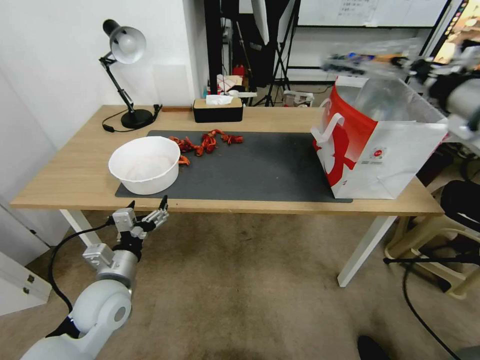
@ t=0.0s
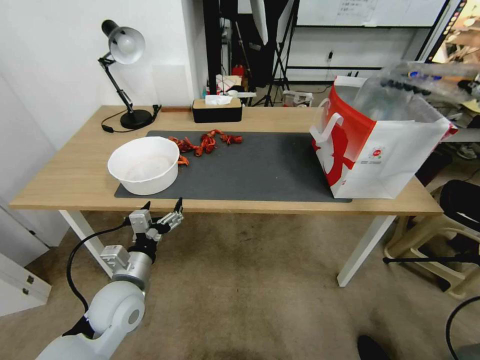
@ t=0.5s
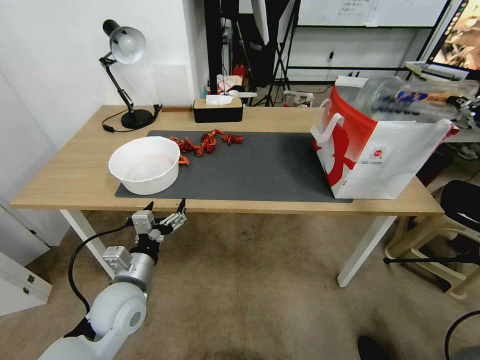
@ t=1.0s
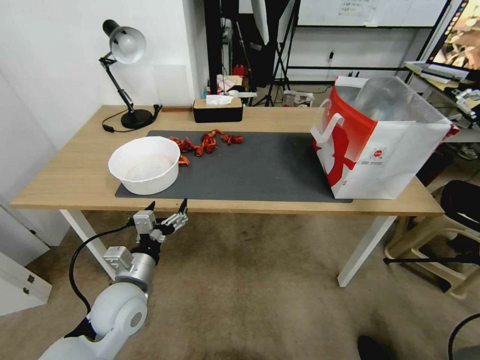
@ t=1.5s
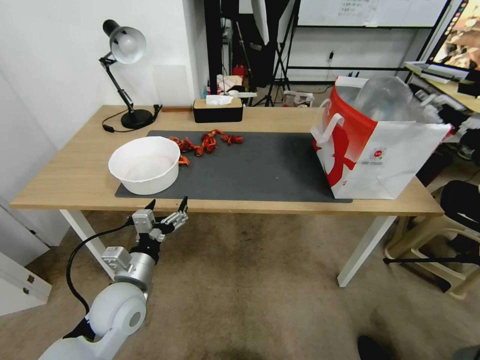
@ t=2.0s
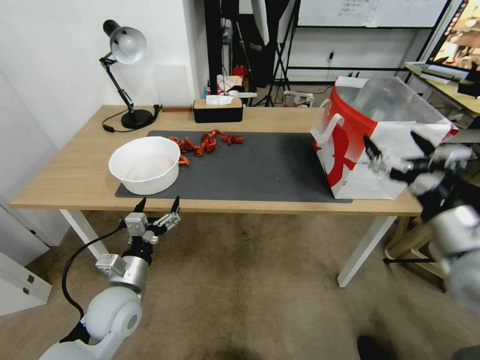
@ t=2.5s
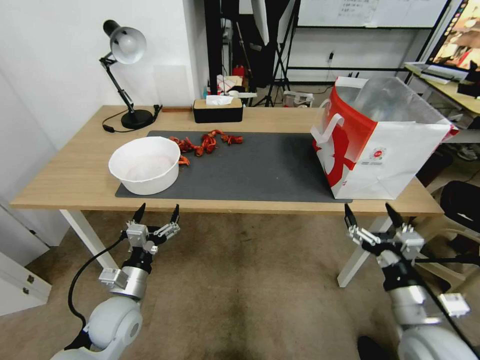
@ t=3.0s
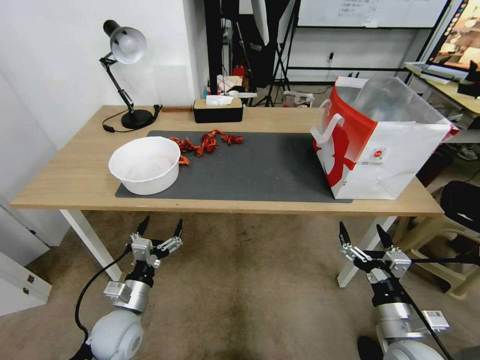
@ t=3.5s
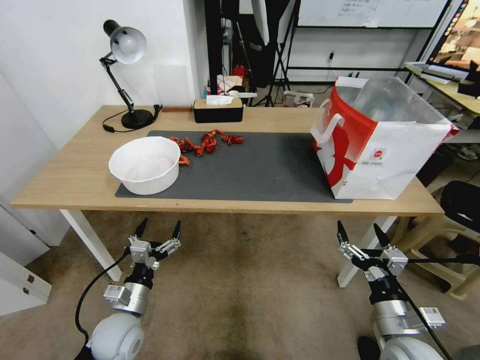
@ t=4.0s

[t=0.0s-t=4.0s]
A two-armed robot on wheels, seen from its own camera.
Task of the whole recording: Close the takeout container lid, then place the container into the takeout bag.
t=0.0s to t=2.0s: The right gripper shifts approximately 10 cm backward and downward, and opens up.
t=2.0s to t=4.0s: The right gripper travels downward and backward by about 35 cm. Meanwhile the left gripper goes approximately 10 cm downward.

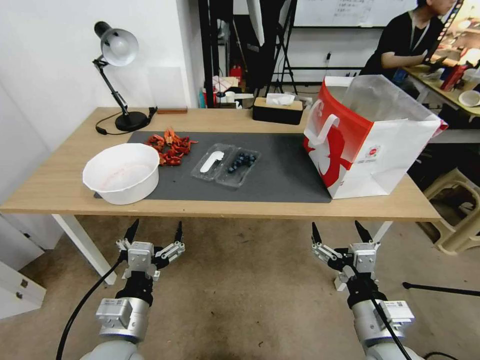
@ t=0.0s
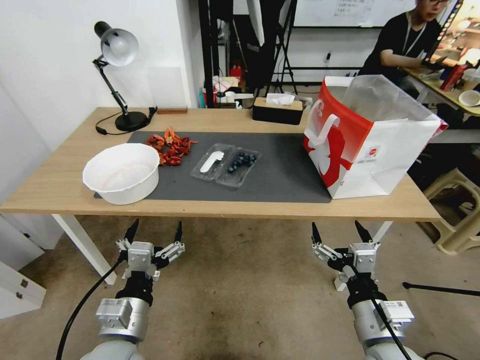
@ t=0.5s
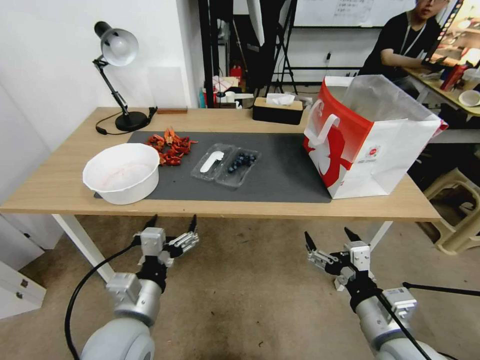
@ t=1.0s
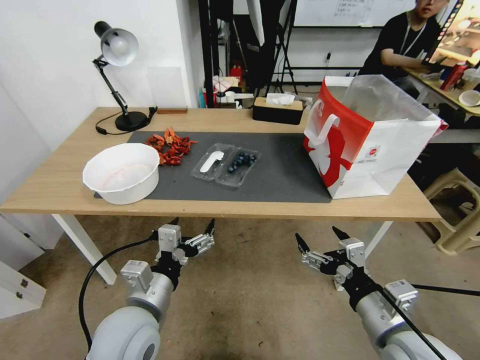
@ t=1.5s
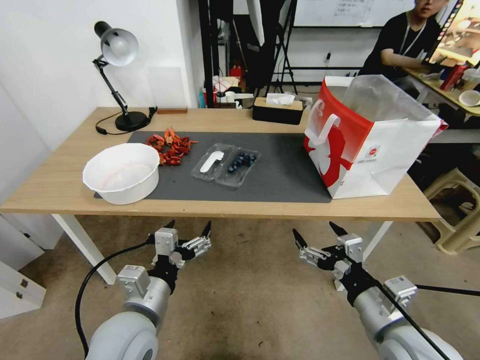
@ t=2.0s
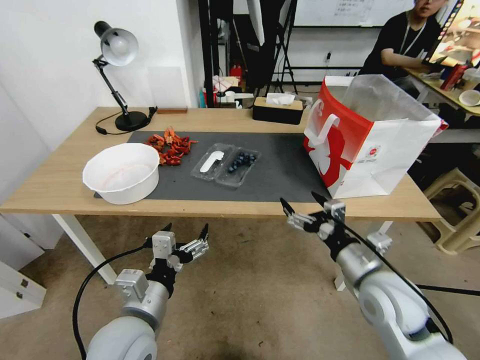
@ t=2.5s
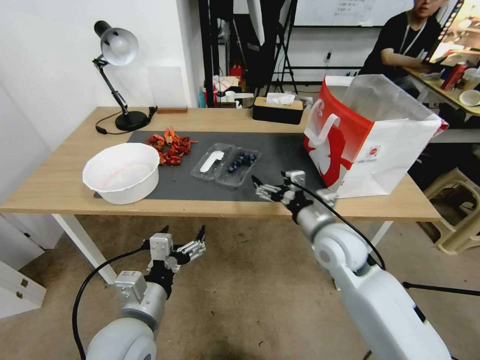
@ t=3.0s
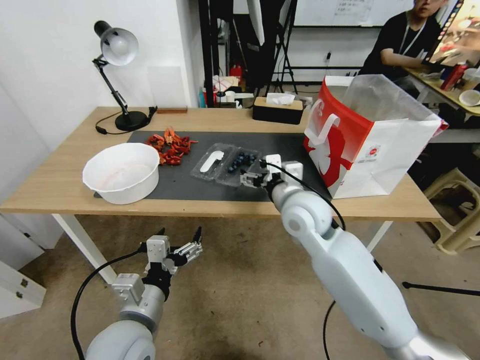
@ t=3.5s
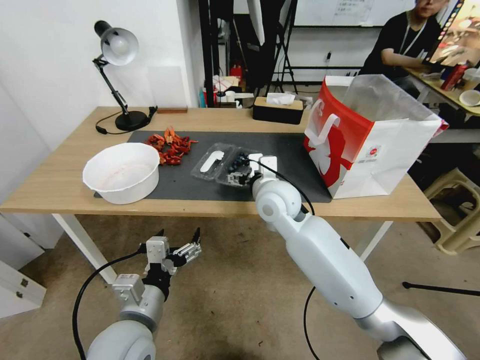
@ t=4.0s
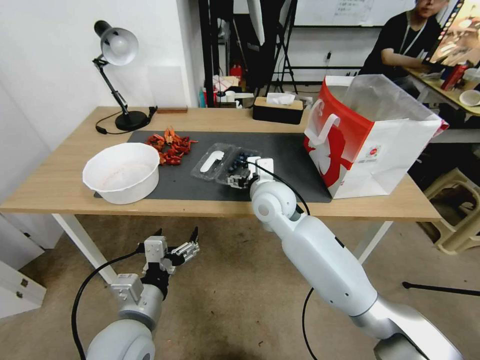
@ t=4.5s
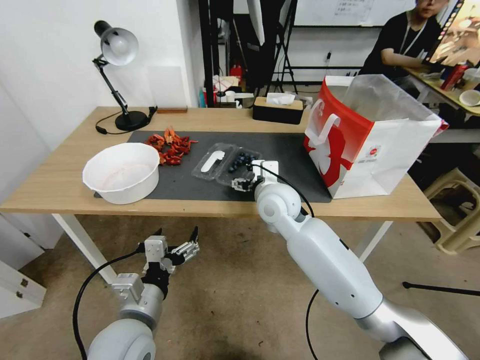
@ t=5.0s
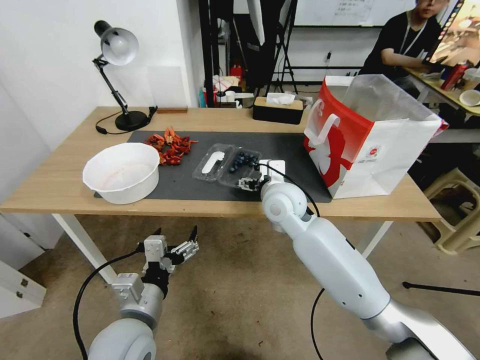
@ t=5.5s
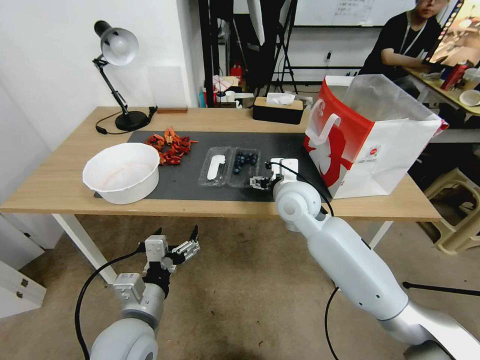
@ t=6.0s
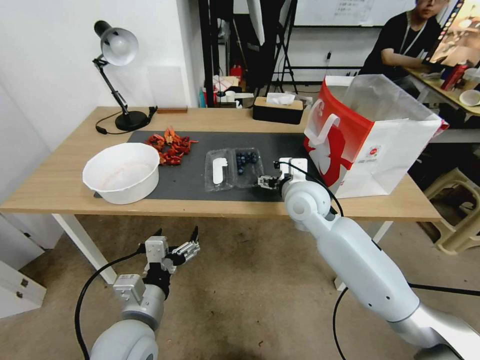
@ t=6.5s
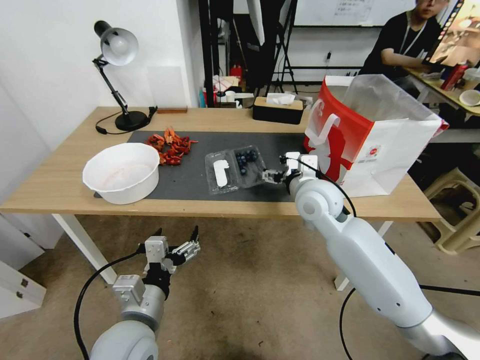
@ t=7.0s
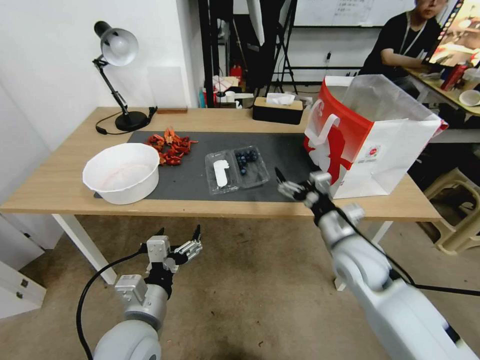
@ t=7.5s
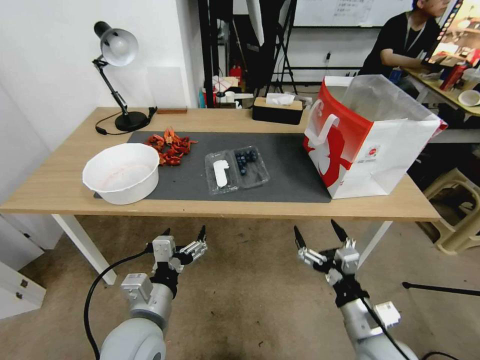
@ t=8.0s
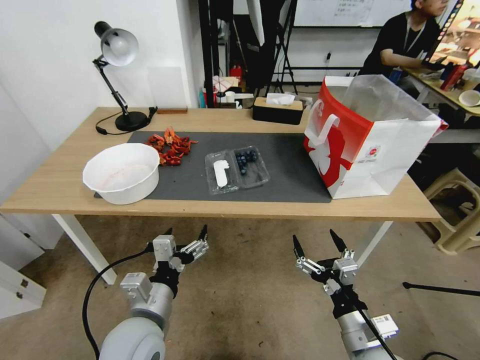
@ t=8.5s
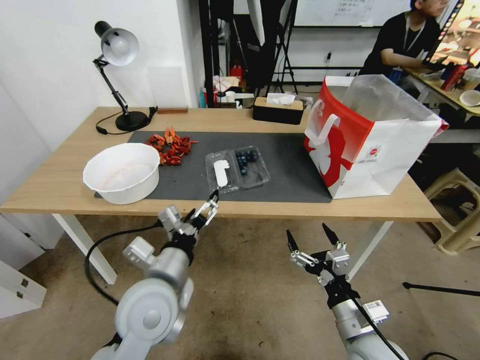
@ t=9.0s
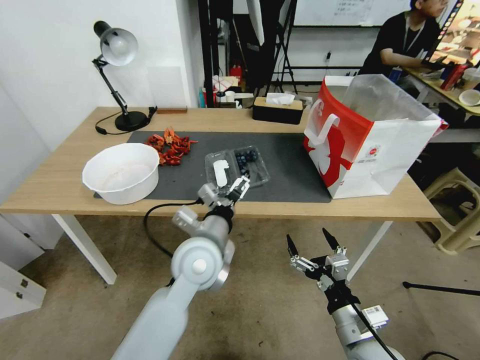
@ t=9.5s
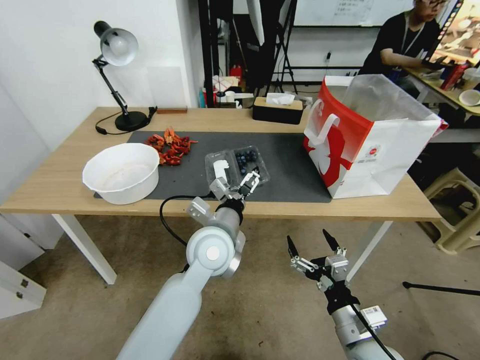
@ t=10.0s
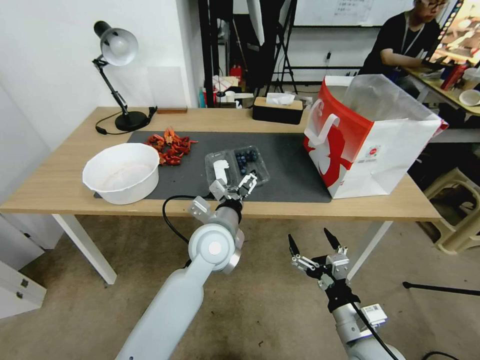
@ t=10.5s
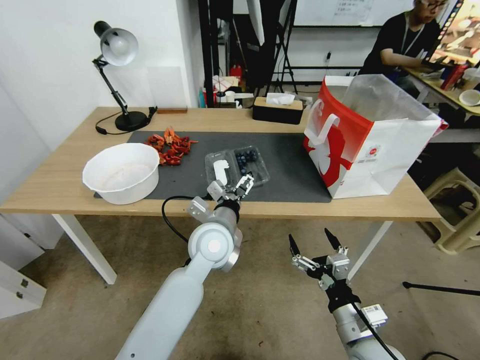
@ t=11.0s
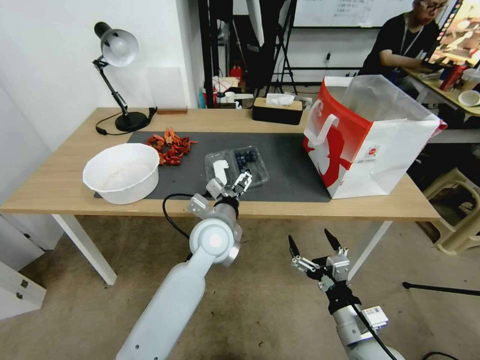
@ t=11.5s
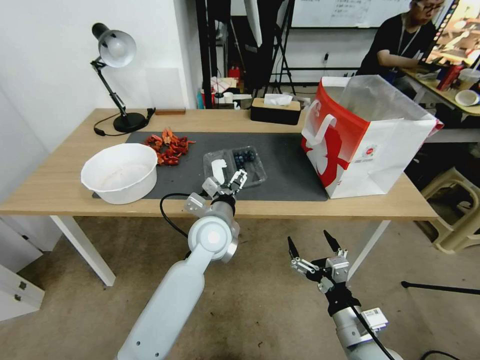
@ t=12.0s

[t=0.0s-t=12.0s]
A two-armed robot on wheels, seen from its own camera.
Task of the whole recording: Close the takeout container lid, then place the container into the takeout bag.
t=2.0s to t=4.0s: The right gripper heads forward and to the left, covering roughly 30 cm.
t=4.0s to t=6.0s: The grippers stay close to where they were, moving slightly.
t=6.0s to t=8.0s: The right gripper heads backward, to the right and downward, covering about 30 cm.
t=8.0s to t=10.0s: The left gripper heads forward and to the right, covering some 20 cm.
t=10.0s to t=12.0s: There are only small adjustments of the grippers.

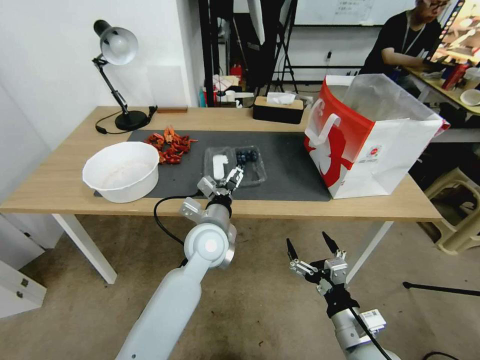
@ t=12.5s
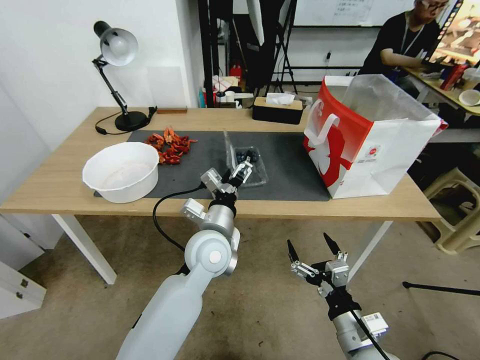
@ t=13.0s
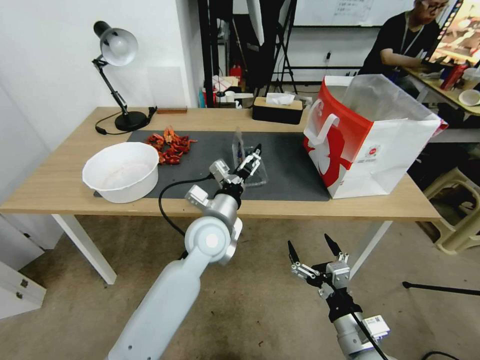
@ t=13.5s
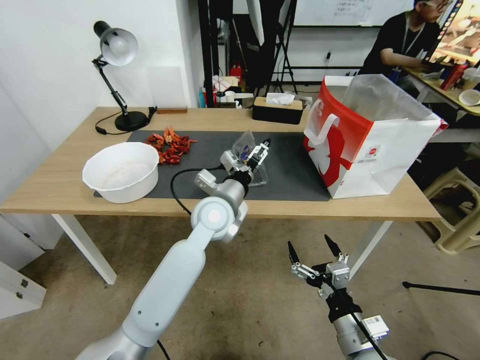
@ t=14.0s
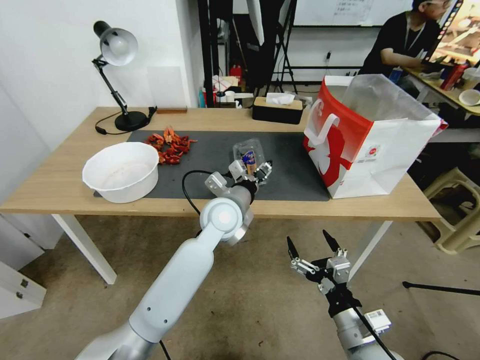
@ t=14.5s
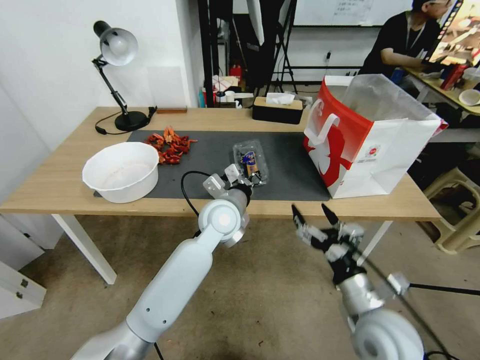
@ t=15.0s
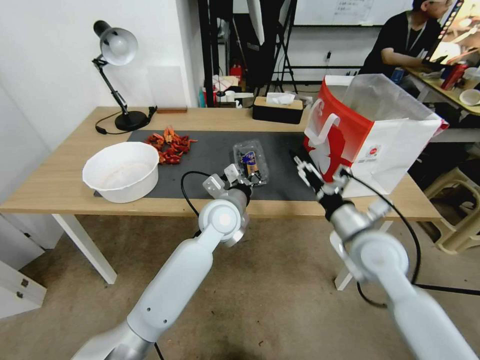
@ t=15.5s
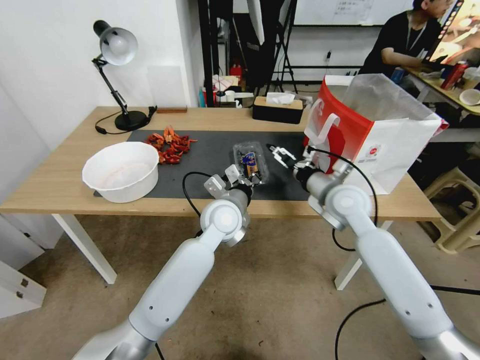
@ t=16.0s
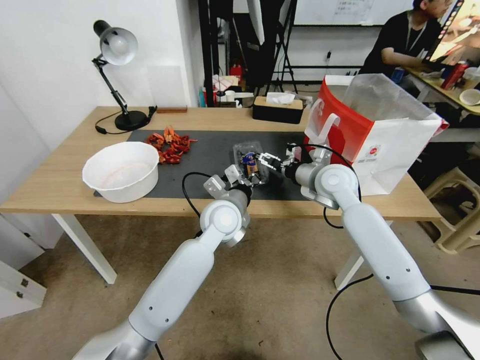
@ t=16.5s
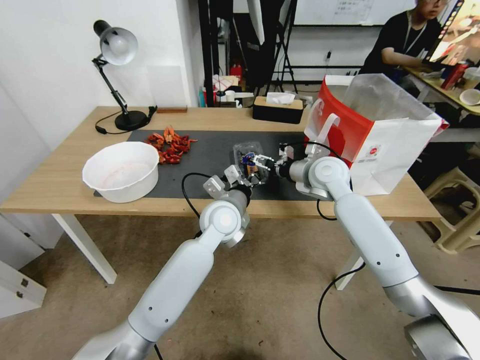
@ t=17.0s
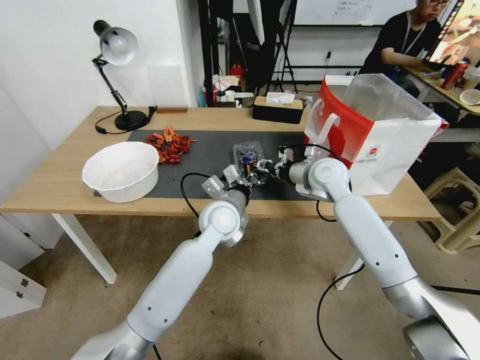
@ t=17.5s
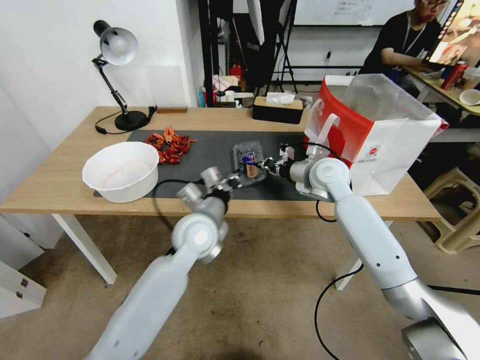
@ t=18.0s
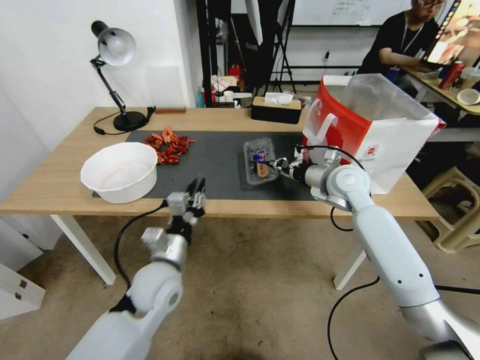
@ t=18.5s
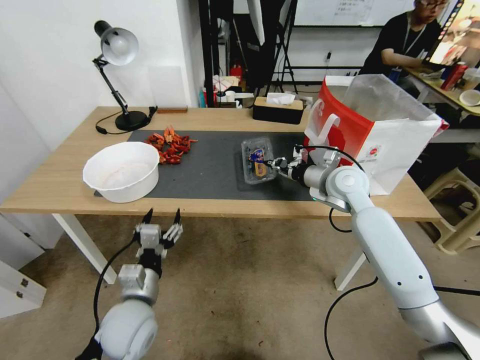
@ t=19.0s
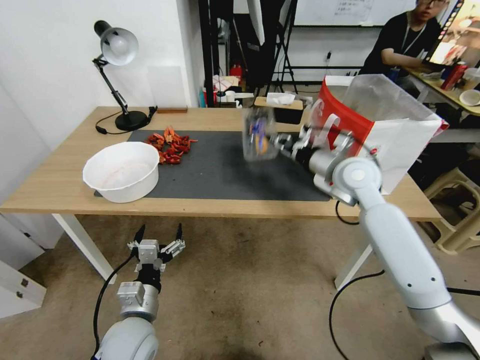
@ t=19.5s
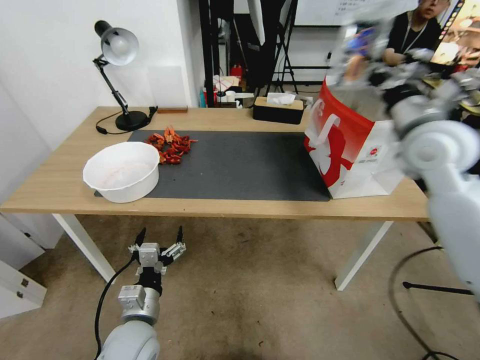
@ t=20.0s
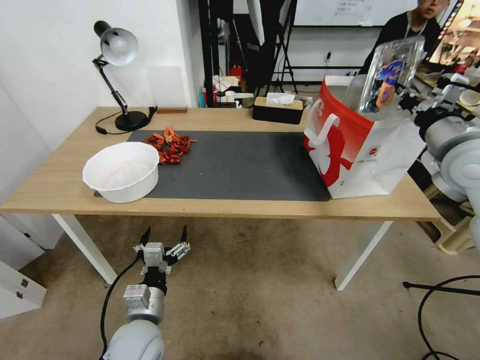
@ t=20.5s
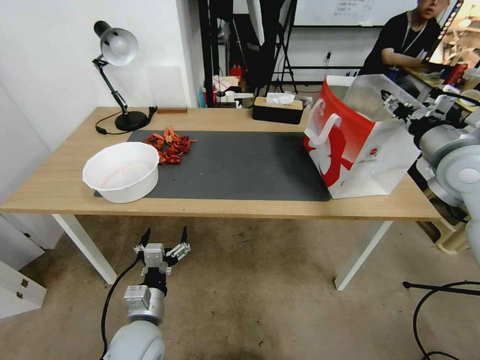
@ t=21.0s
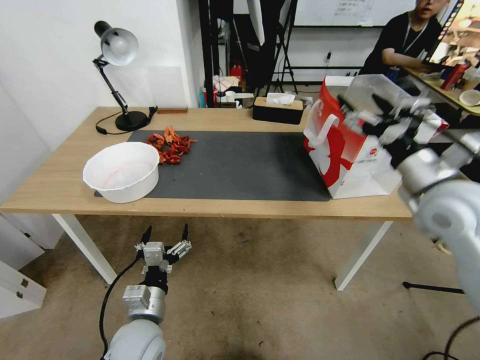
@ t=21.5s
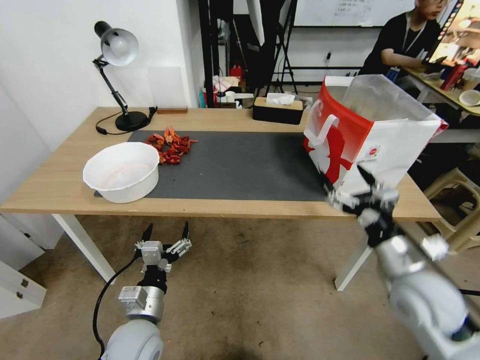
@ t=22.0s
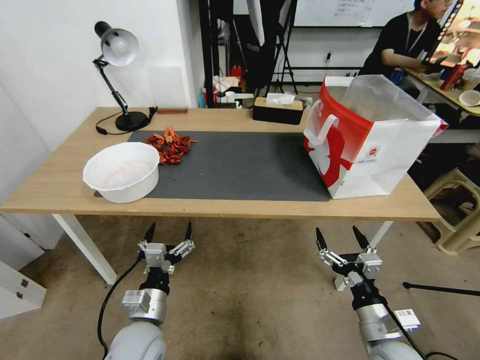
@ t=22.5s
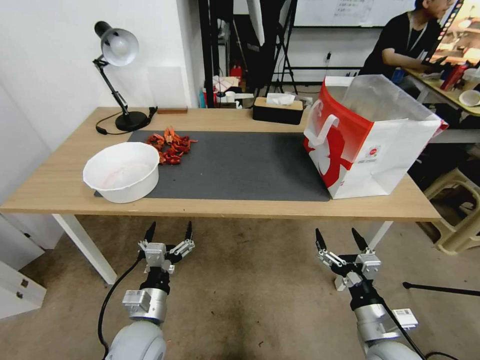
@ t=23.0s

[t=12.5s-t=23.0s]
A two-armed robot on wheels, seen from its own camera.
Task of the whole recording: Close the takeout container lid, then place the container into the takeout bag.
t=12.5s to t=14.5s: The left gripper travels forward by about 5 cm, and closes.
t=14.5s to t=16.5s: The right gripper shifts some 35 cm forward and upward; the left gripper closes its fingers.
t=16.5s to t=19.0s: The left gripper shifts roughly 25 cm backward, to the left and downward, and opens its fingers. The right gripper closes its fingers.
t=19.0s to t=21.0s: The right gripper moves upward, to the right and backward, roughly 20 cm, and opens its fingers.
t=21.0s to t=23.0s: The right gripper travels downward and backward by some 35 cm, and opens.
